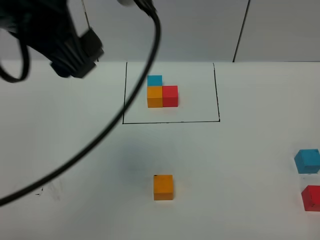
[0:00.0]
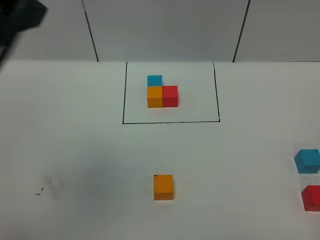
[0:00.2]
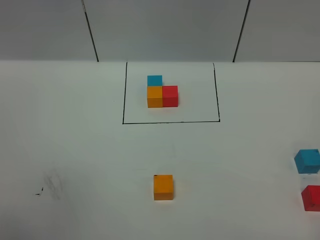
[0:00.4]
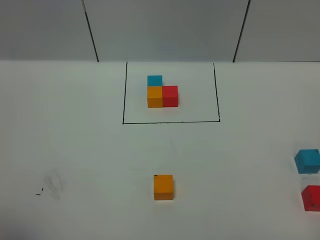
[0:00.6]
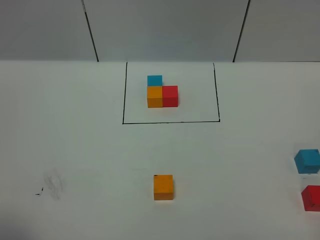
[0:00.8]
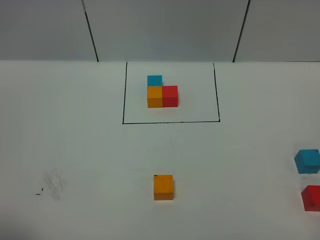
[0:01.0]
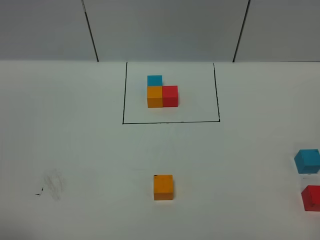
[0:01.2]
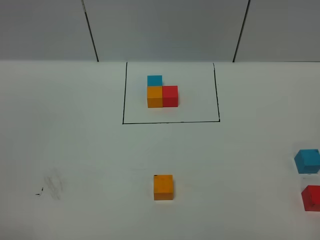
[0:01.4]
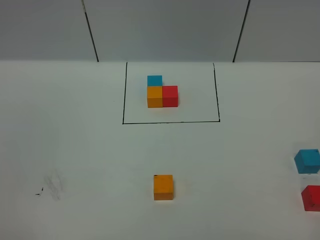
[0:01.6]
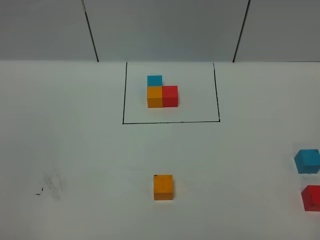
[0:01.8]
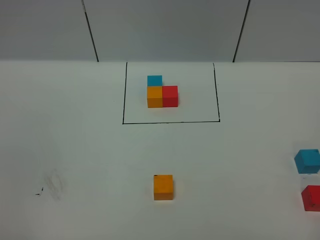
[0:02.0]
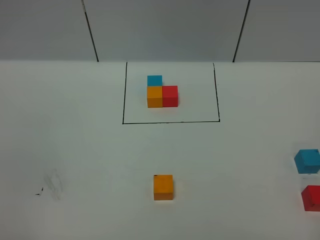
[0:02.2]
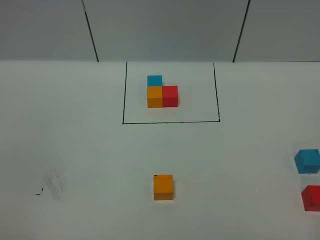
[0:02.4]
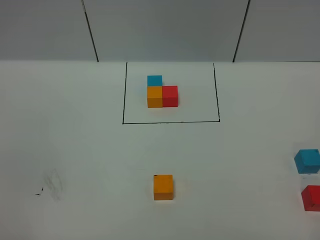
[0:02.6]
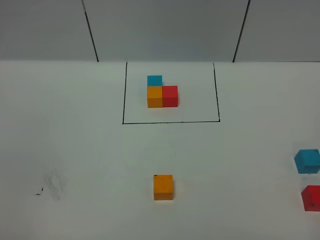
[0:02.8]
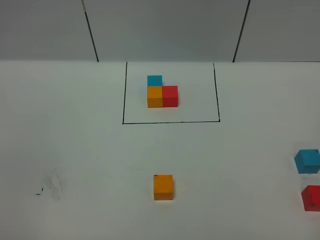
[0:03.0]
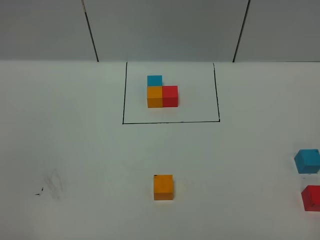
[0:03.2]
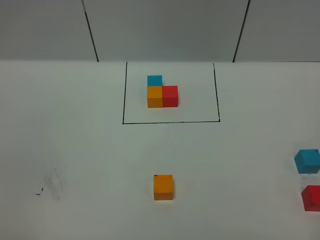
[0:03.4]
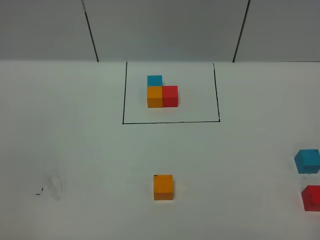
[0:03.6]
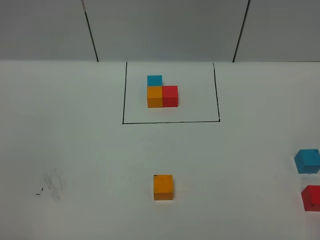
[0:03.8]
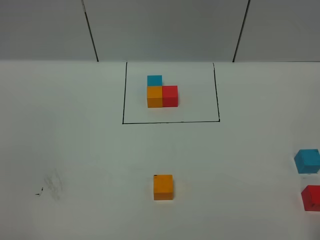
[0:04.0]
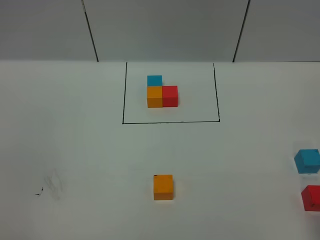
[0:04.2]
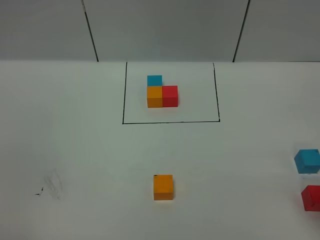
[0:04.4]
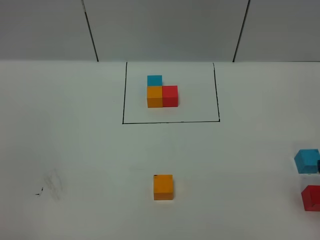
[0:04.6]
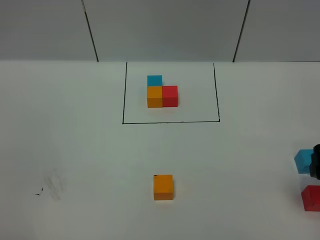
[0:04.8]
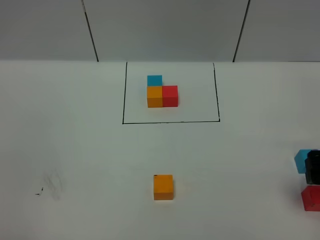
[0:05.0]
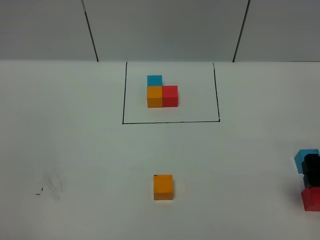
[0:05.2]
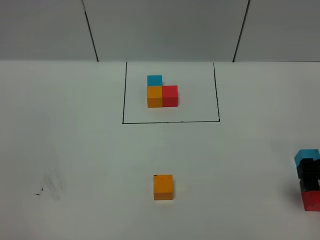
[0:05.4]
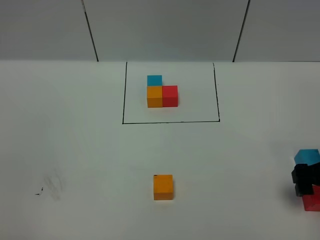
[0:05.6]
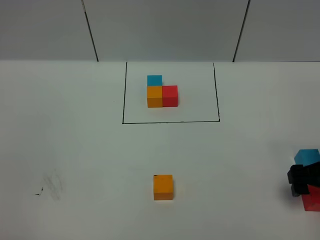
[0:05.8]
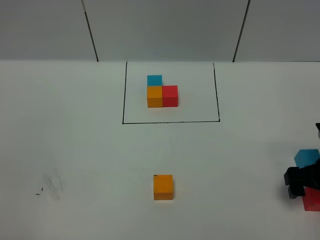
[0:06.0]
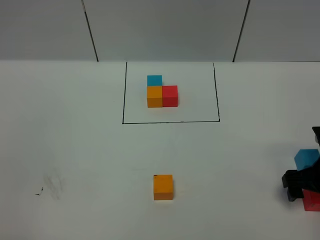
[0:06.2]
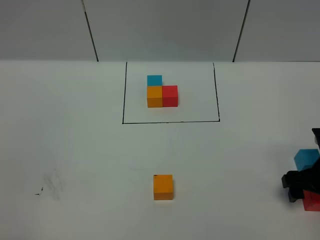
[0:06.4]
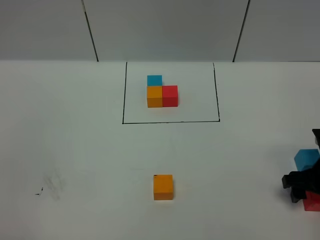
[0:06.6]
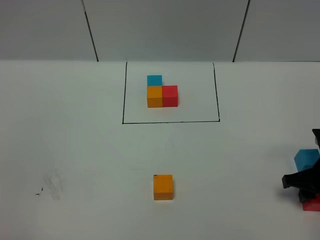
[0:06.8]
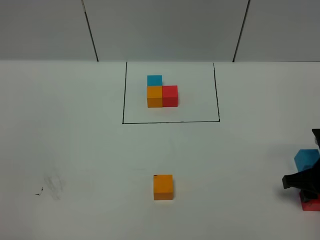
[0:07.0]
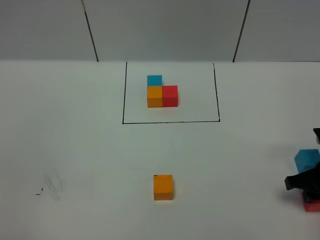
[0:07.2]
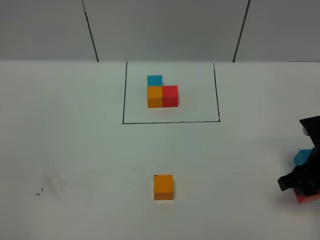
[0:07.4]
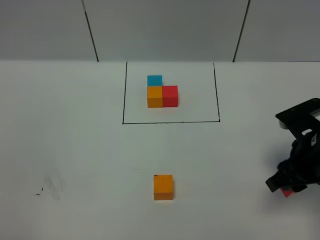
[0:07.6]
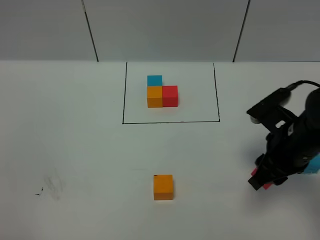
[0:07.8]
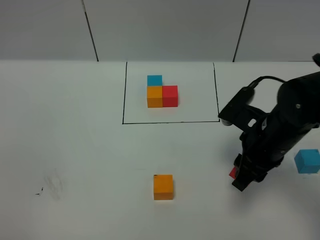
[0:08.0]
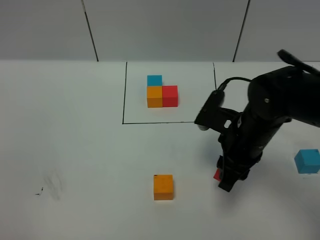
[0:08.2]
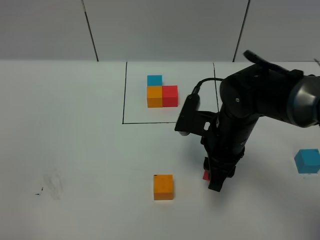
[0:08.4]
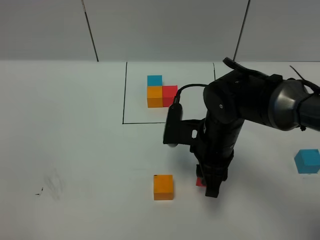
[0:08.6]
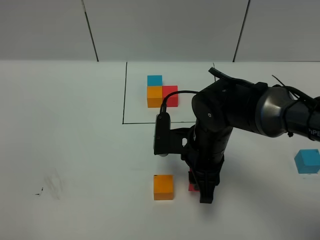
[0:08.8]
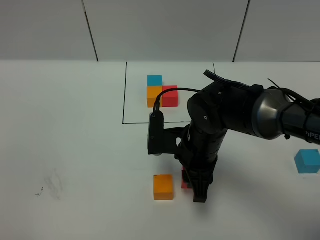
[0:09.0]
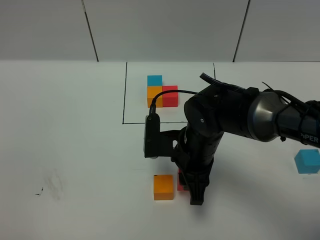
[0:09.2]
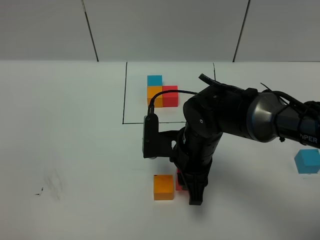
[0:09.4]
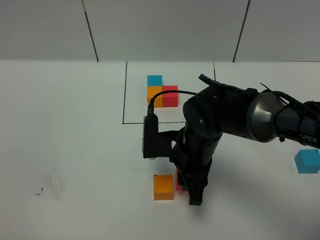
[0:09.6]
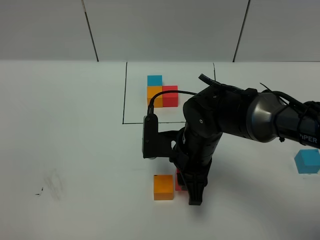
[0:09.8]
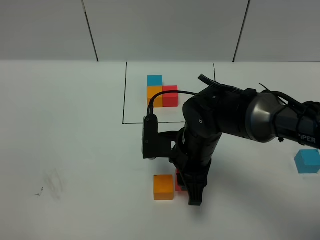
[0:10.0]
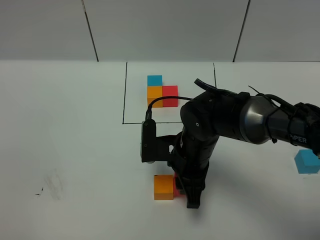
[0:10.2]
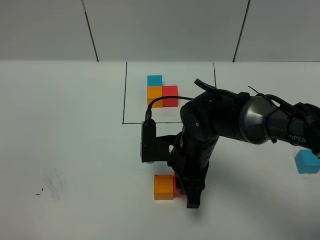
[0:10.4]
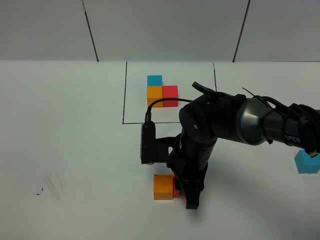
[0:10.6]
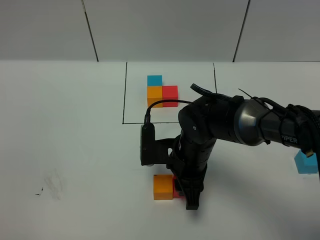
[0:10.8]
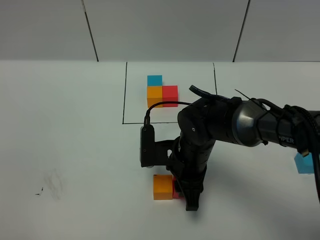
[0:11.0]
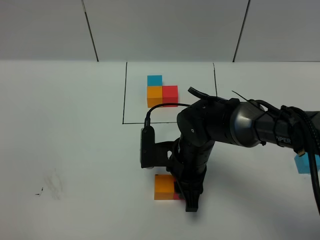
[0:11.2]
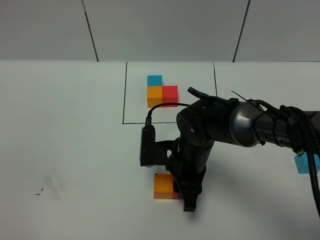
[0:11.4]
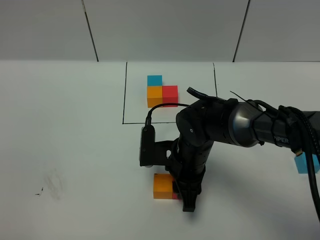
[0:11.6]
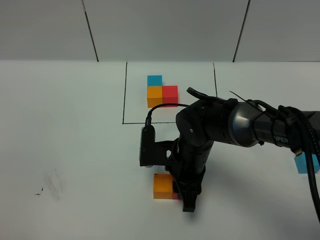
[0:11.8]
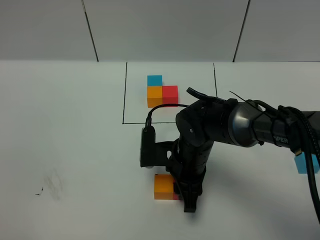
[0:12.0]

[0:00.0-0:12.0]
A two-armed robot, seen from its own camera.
Task of the whole recording: According to the building block template in front, assemble the scattered blocks together.
0:00.0 to 0:01.6: The left gripper shifts about 35 cm backward, to the left and downward.
0:04.4 to 0:06.0: The right gripper goes about 15 cm downward and forward.
0:06.0 to 0:07.6: The right gripper moves to the left and upward, roughly 10 cm, and closes up.
0:07.6 to 0:09.0: The right gripper heads to the left, covering roughly 15 cm.
0:09.0 to 0:12.0: The grippers make only small movements.

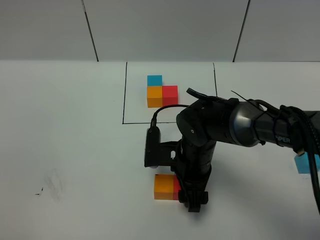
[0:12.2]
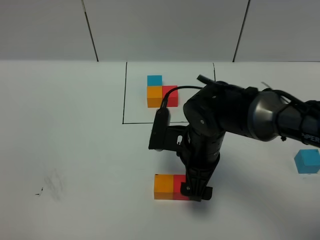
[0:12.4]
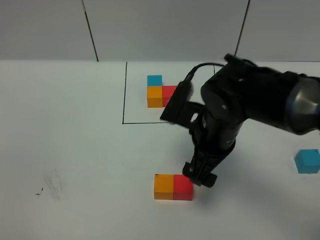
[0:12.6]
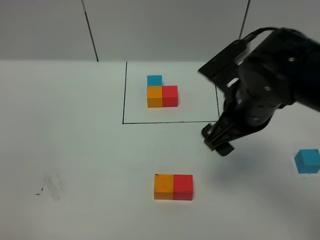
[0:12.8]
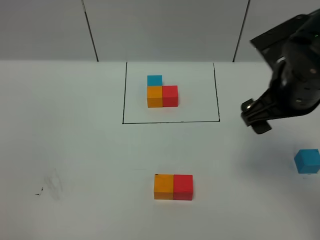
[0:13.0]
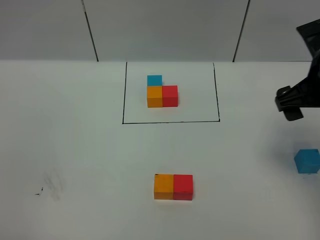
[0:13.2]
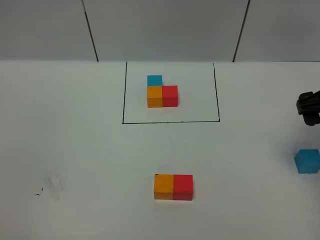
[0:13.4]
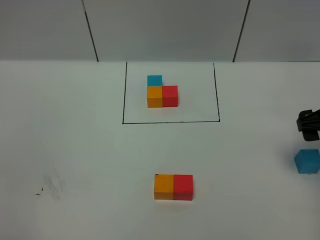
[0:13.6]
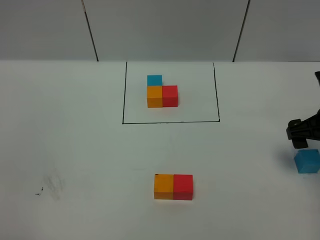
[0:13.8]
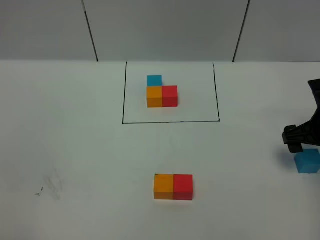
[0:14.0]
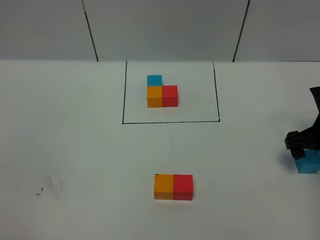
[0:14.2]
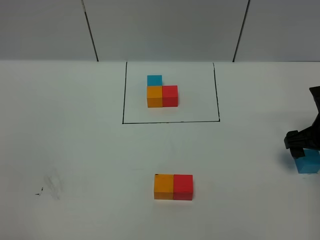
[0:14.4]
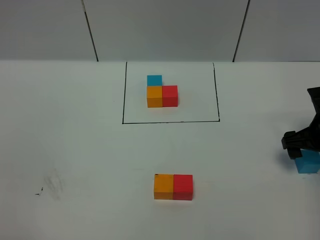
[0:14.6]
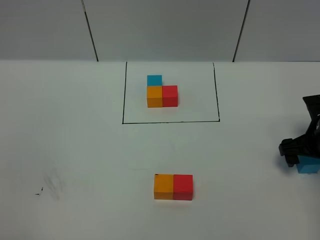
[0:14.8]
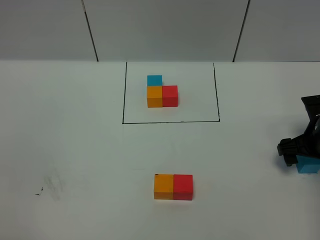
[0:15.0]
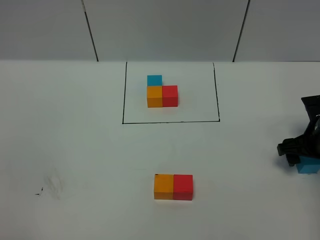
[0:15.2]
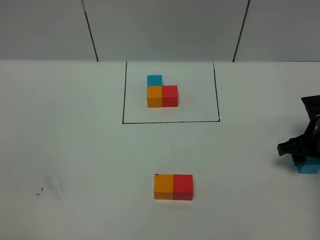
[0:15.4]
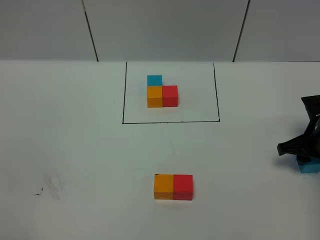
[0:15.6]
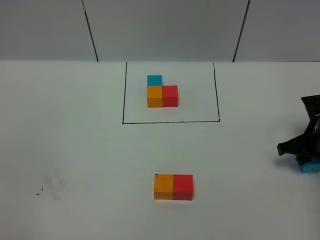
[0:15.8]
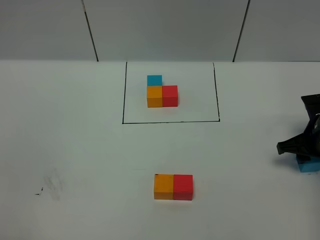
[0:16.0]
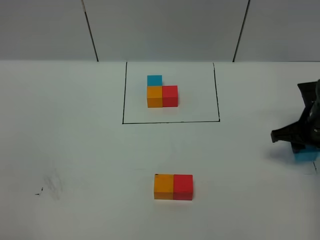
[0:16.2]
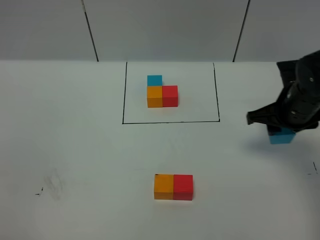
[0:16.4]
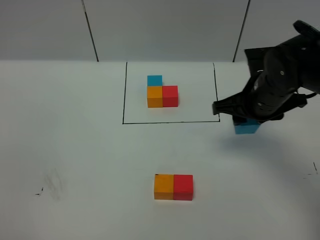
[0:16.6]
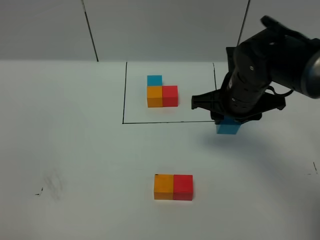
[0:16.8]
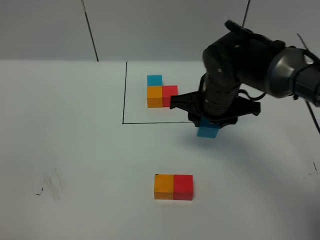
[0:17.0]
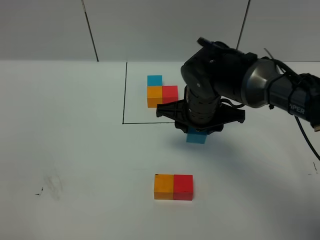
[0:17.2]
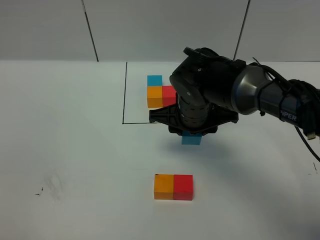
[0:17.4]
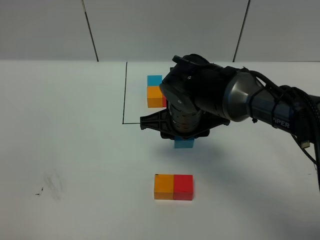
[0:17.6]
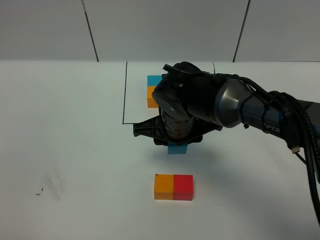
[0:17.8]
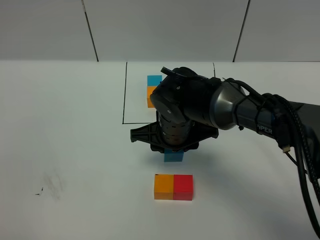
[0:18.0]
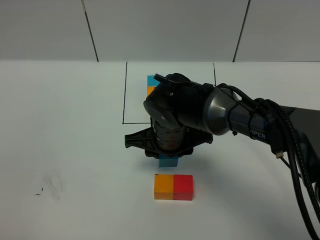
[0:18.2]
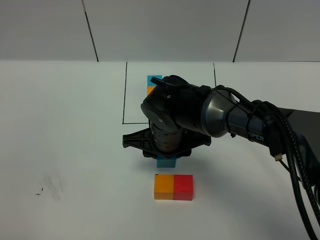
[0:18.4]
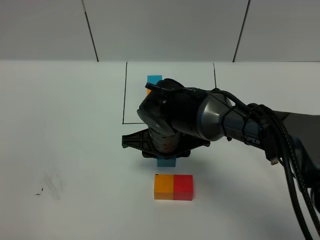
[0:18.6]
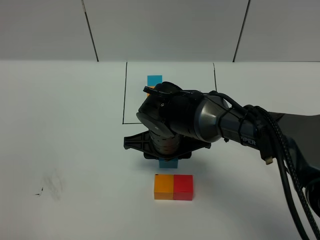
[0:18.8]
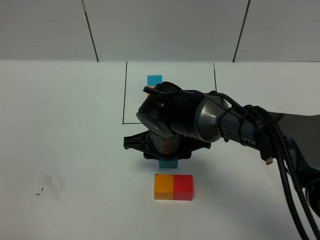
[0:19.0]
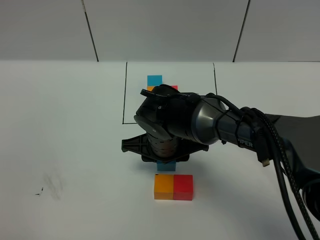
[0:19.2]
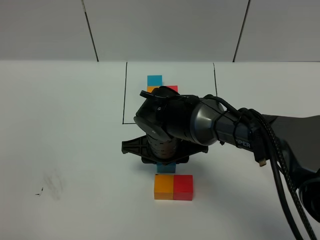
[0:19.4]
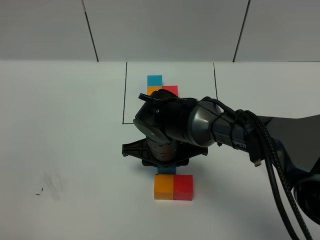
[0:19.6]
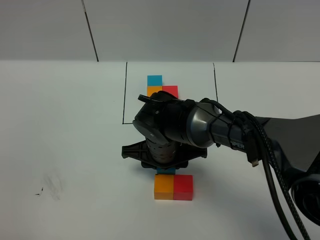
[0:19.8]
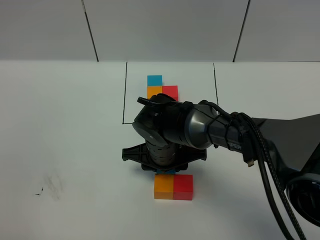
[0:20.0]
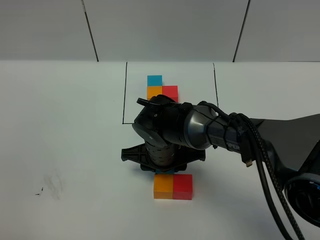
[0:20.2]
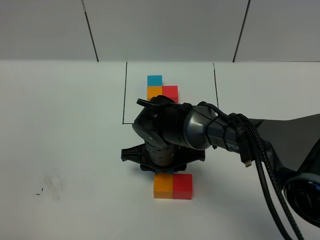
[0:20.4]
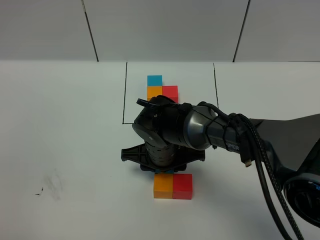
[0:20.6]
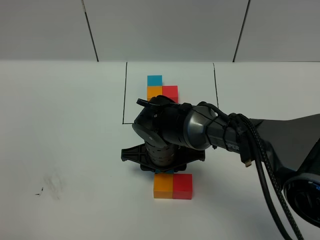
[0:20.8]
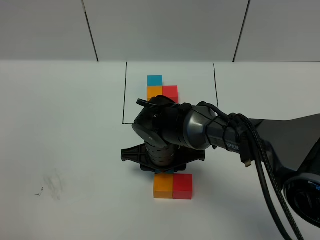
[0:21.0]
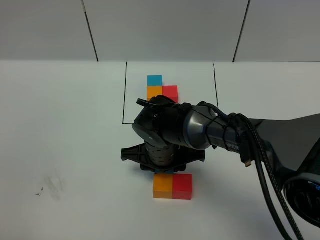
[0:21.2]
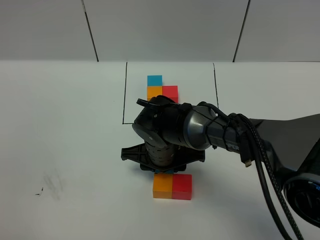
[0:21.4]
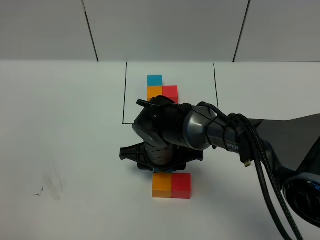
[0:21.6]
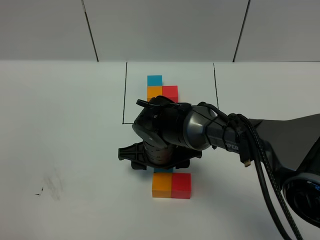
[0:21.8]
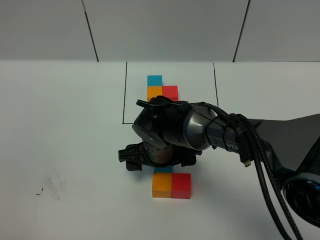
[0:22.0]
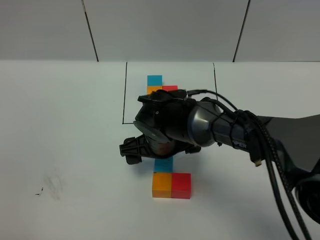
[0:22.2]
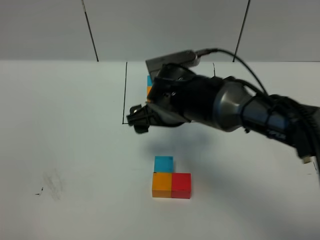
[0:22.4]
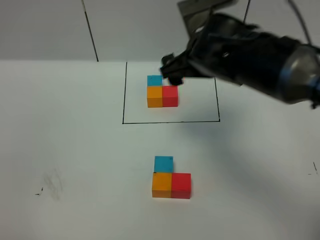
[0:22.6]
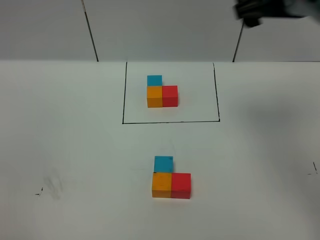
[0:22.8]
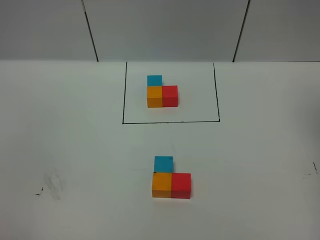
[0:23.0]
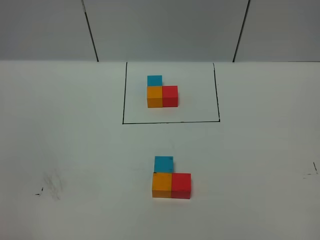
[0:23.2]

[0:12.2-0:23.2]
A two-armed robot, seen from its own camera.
Task of the whole recording: According to the building block template in front, assemble the scattered blocks together.
Step, 0:12.6 to 0:22.2: Put the blue cube on the behind of the orange cube.
0:12.2 to 0:13.8: The right gripper travels to the right by roughly 25 cm.
0:13.8 to 0:15.4: The right gripper is displaced downward by approximately 5 cm, and closes up.
0:15.4 to 0:17.0: The right gripper goes some 20 cm to the left.
0:17.0 to 0:18.4: The right gripper shifts approximately 10 cm to the left.
0:18.4 to 0:20.0: There are only small adjustments of the grippers.
0:20.0 to 0:21.6: Neither gripper changes place.
0:21.6 to 0:23.2: The right gripper is displaced upward and to the right by roughly 50 cm, and opens.
